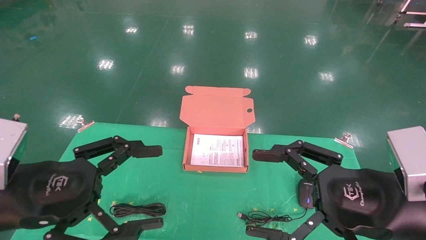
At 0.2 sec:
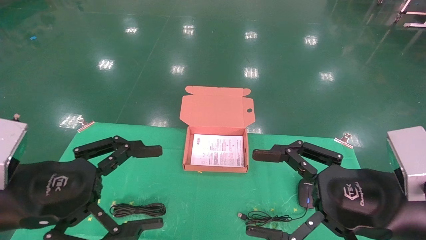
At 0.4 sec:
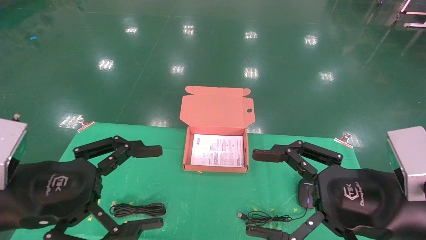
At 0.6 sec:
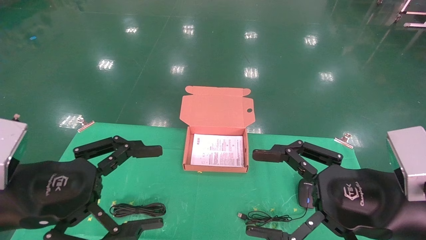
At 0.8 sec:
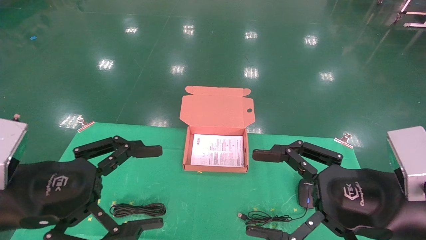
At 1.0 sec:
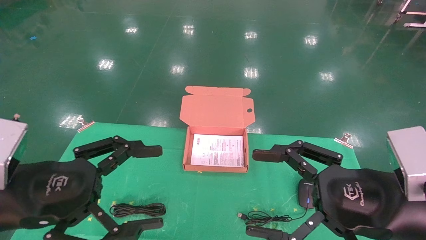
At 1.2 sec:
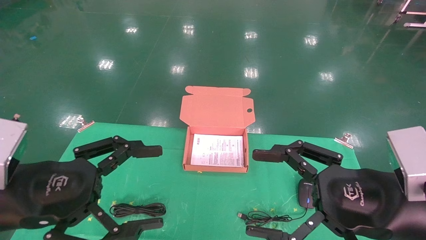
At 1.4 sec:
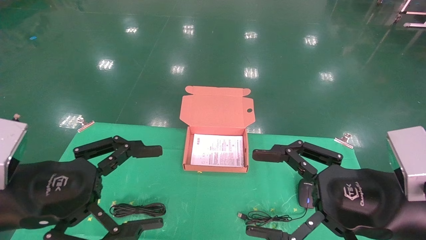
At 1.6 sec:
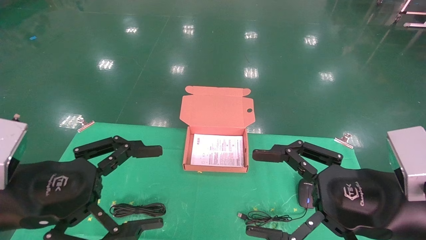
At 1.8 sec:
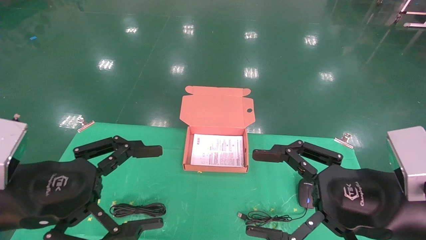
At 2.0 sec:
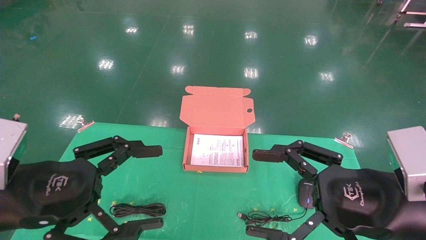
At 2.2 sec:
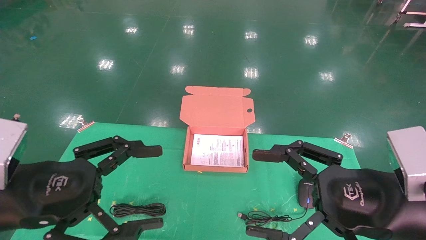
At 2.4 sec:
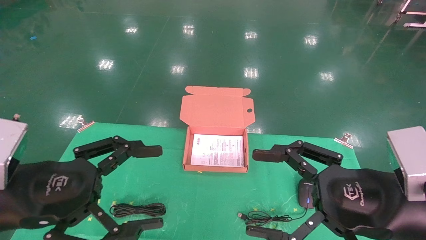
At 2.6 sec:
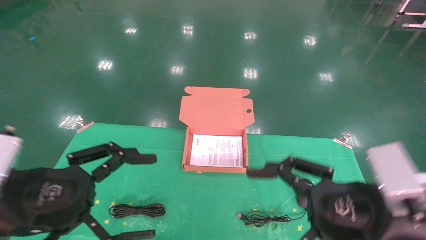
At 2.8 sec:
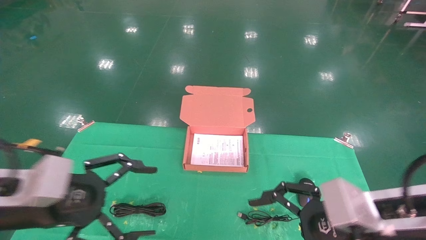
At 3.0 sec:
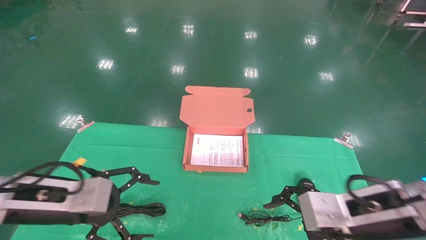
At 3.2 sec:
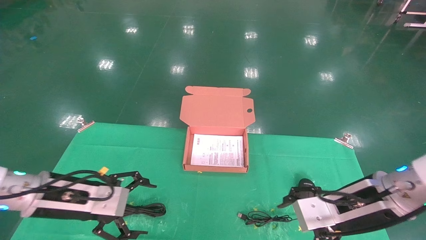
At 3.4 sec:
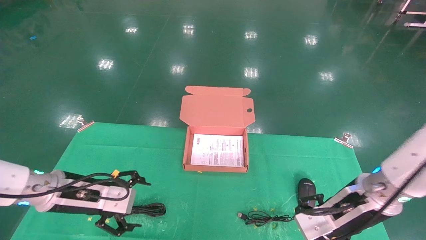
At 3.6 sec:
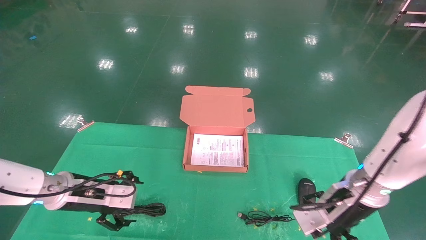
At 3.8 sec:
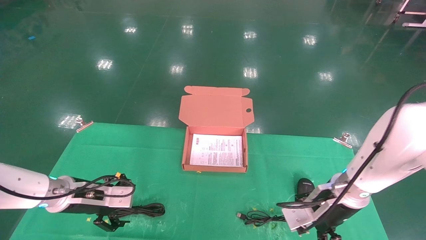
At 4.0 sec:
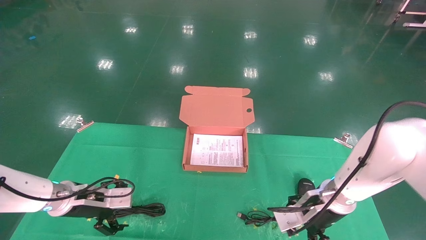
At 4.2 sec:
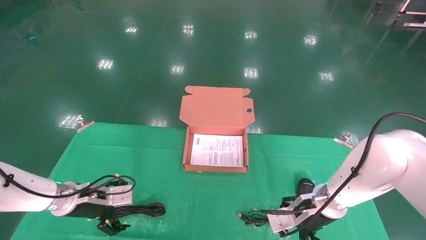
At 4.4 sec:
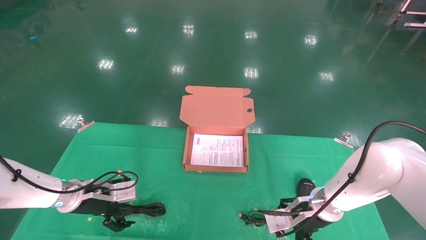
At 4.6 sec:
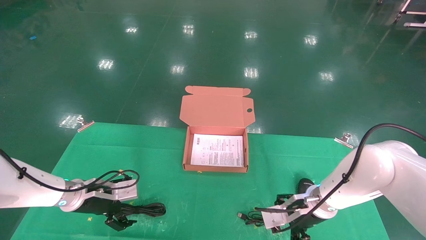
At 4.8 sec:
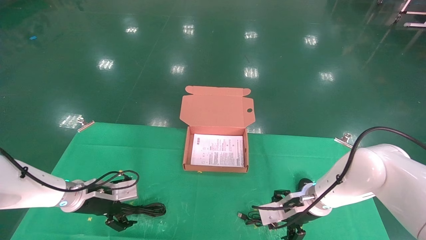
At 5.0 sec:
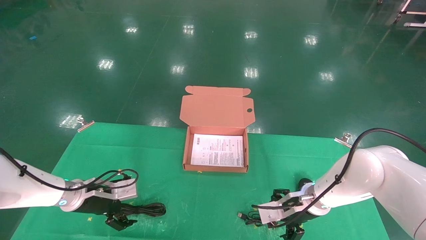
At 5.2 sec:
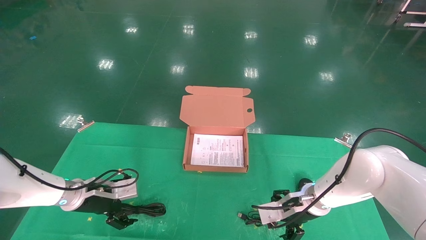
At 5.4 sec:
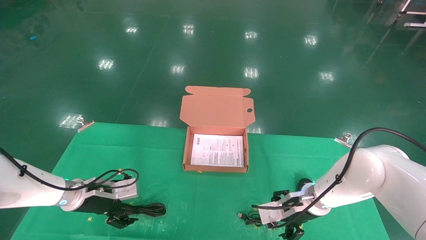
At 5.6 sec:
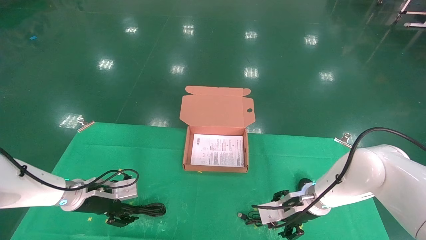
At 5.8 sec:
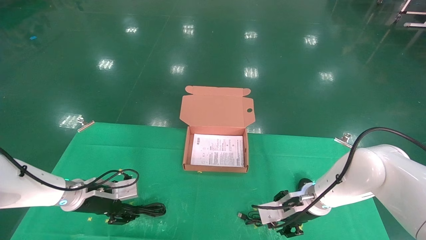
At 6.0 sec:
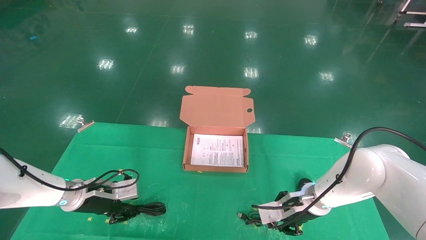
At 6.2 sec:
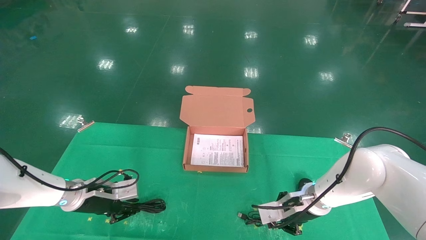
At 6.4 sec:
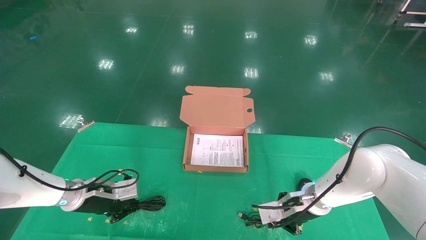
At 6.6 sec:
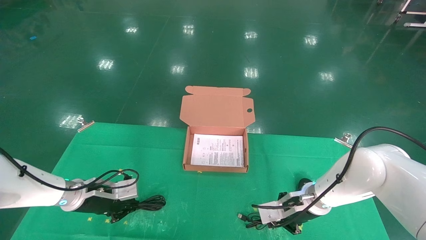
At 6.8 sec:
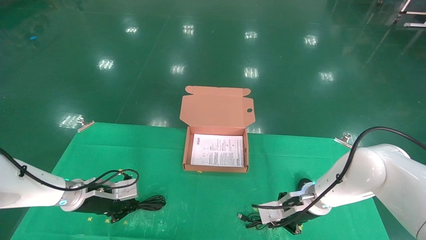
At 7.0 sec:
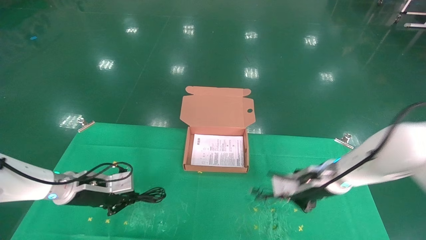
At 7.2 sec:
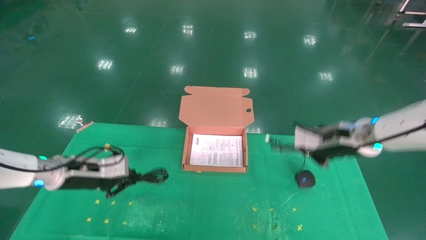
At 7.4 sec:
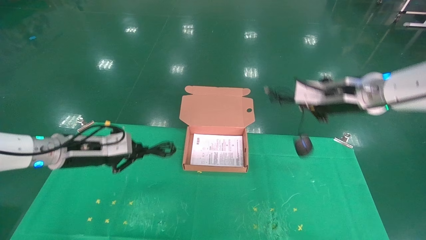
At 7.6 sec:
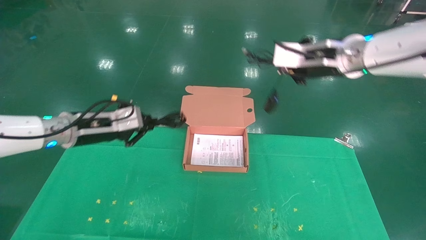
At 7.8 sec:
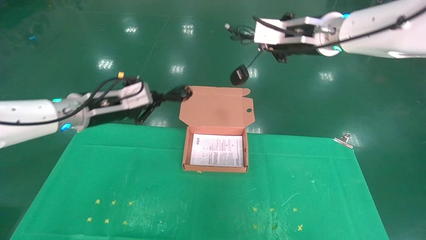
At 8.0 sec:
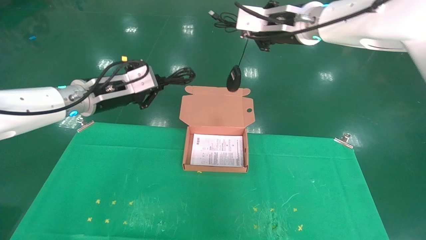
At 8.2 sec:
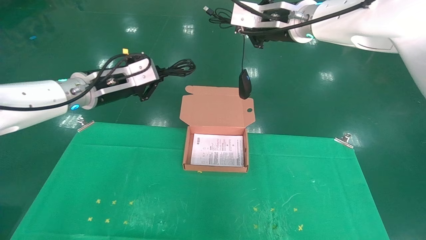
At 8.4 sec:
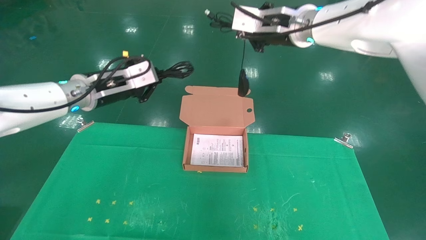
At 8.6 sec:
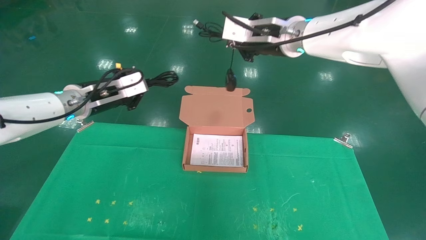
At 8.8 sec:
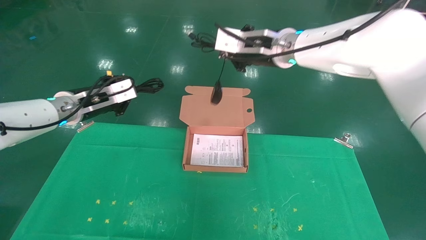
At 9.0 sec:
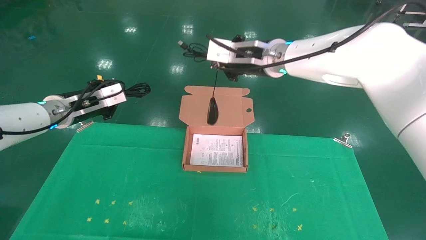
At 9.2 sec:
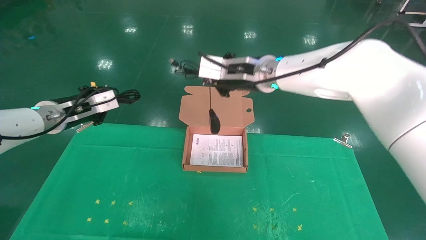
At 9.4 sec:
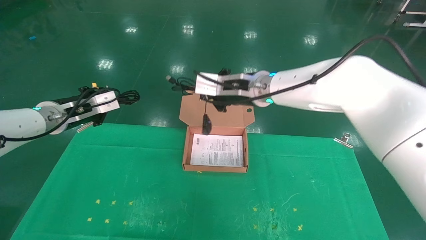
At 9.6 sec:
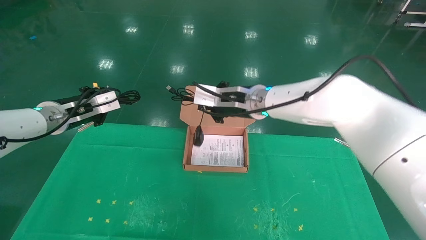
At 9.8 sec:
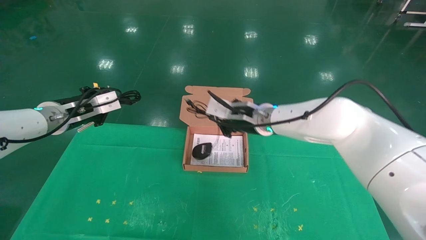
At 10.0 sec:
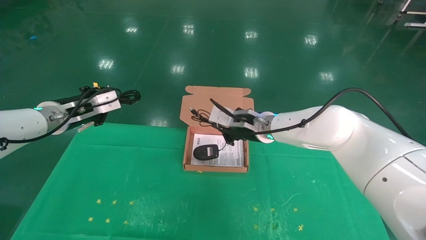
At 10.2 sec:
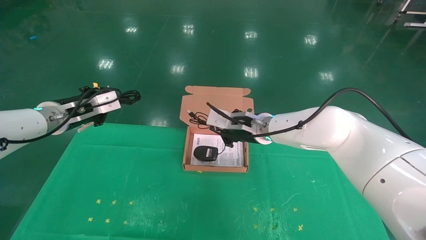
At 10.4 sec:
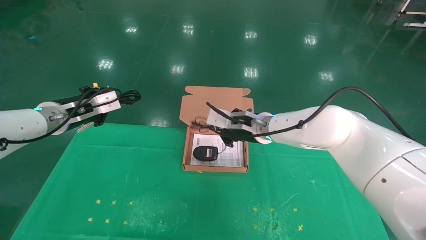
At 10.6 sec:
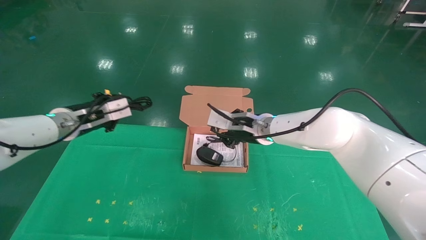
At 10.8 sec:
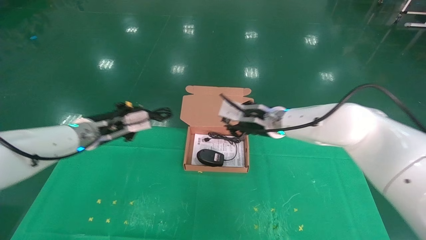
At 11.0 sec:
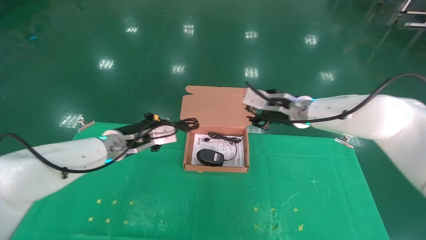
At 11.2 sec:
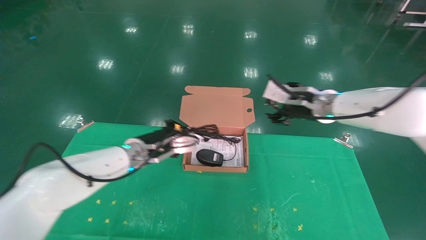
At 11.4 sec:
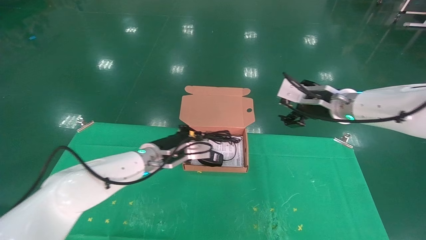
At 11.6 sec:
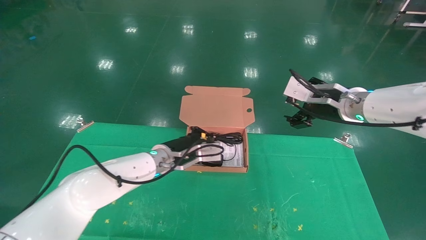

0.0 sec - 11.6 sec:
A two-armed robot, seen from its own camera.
Task of the whole recording: grasp data cable left put into box grasp mouse right put into box.
Step, 1.2 sec - 6.0 sec: Grab and pick up both the mouse and power cord from the accessory packaging area at the same time.
0.0 sec - 1.4 sec: Both grippers stay put.
2.8 sec - 4.4 sec: Both grippers travel together forward and downward, some 25 cm.
4.4 sec - 5.8 sec: The grippers make only small movements.
5.8 sec - 7.2 sec: The left gripper is displaced upward by approximately 5 cm, and closes its fingers. The right gripper goes approximately 10 cm upward, and closes its fingers.
7.2 sec - 8.8 sec: The left gripper travels upward by roughly 15 cm. Meanwhile the right gripper heads upward and to the left, covering approximately 25 cm.
8.8 sec - 10.2 sec: The left gripper changes place by about 5 cm. The right gripper moves downward, roughly 20 cm.
10.2 sec - 11.6 sec: The right gripper heads to the right and upward, covering about 15 cm, and opens its fingers. The left gripper goes about 25 cm to the right and downward.

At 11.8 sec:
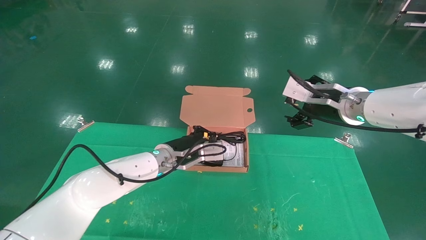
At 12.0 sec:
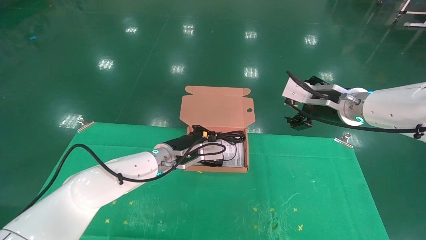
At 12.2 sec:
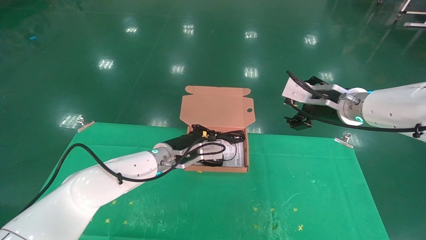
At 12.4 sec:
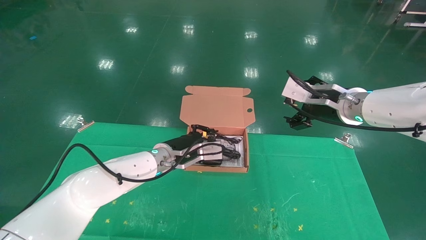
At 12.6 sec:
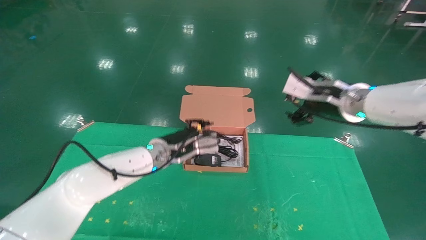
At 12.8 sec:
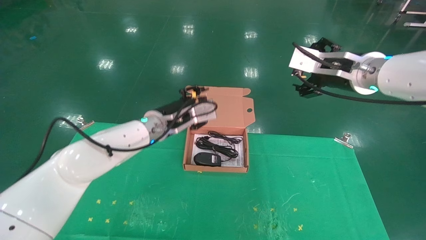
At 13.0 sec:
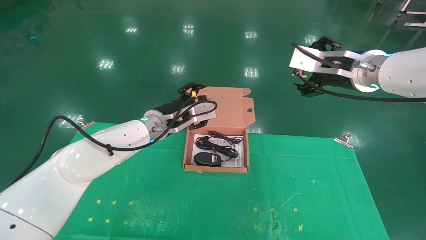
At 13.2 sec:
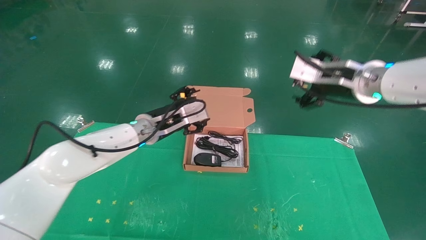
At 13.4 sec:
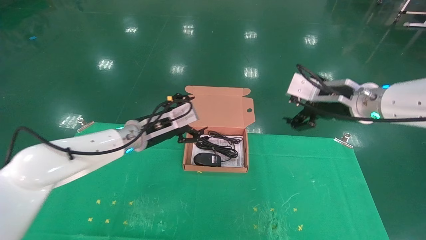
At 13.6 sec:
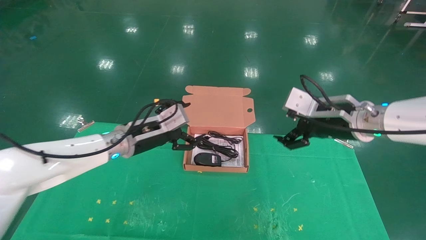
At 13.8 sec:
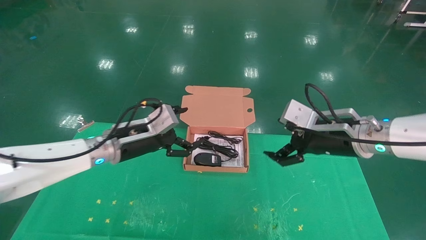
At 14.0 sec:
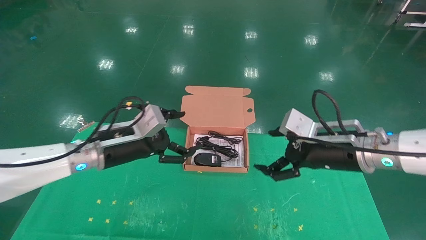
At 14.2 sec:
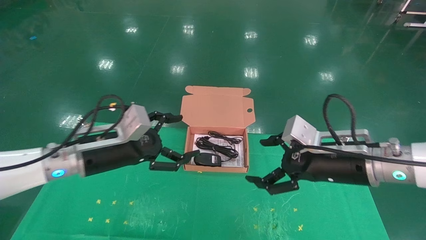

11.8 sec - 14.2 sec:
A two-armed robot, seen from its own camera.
Task of the whole recording: grasp data cable left put into box grasp mouse right put into box.
11.8 sec - 13.0 sec: The left gripper shifts some 5 cm upward, and opens its fingers.
13.0 sec - 14.2 sec: The right gripper moves downward and backward, some 10 cm; the left gripper goes approximately 15 cm backward and to the left.
